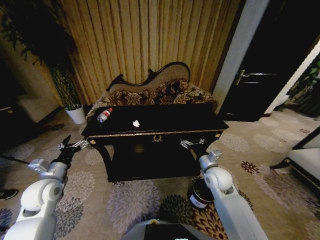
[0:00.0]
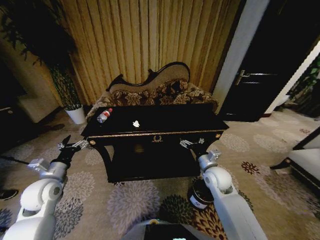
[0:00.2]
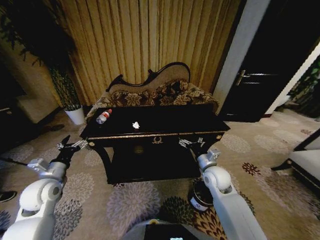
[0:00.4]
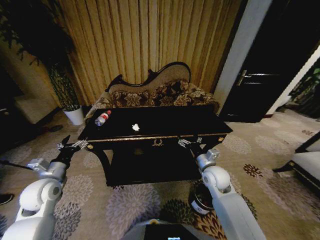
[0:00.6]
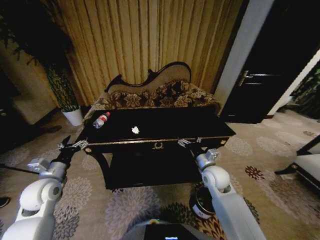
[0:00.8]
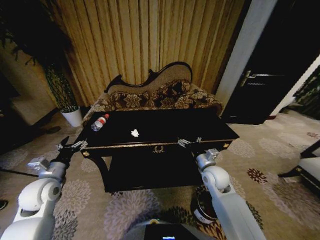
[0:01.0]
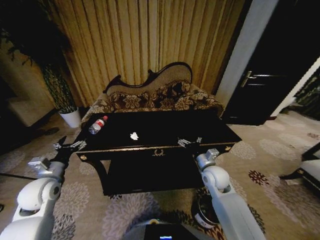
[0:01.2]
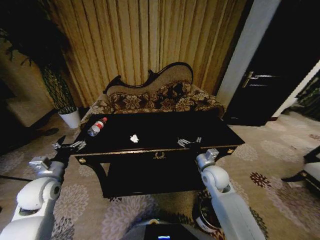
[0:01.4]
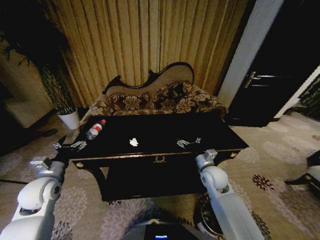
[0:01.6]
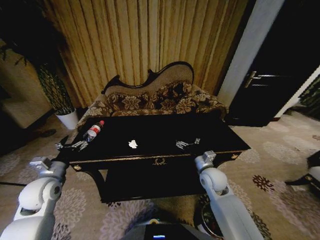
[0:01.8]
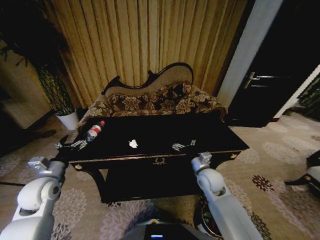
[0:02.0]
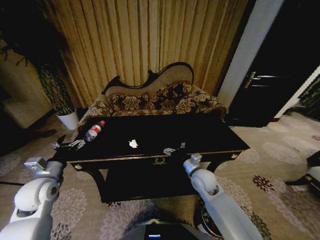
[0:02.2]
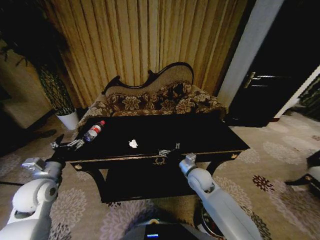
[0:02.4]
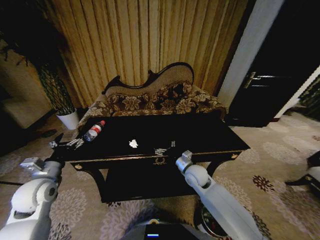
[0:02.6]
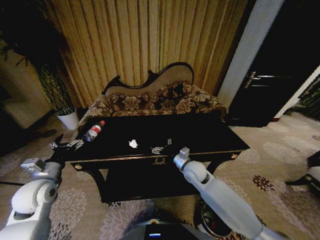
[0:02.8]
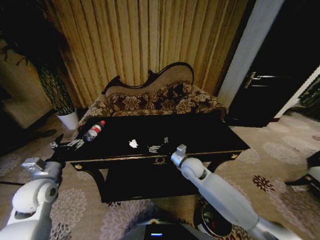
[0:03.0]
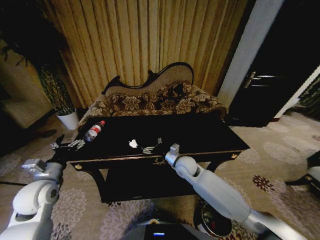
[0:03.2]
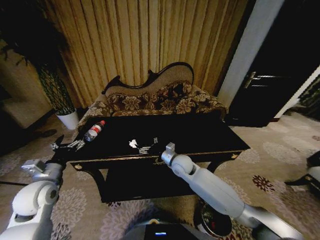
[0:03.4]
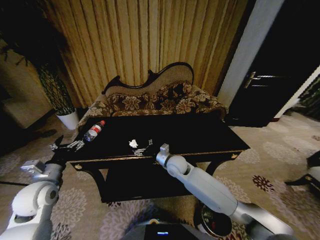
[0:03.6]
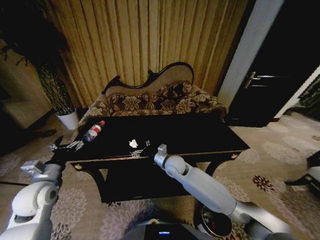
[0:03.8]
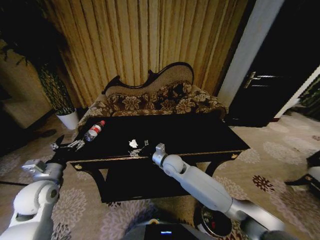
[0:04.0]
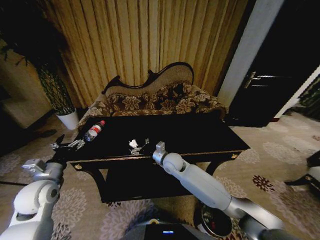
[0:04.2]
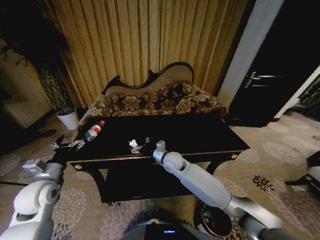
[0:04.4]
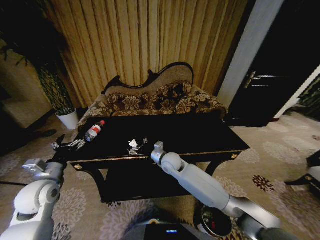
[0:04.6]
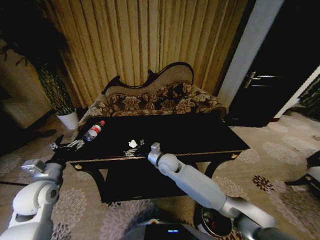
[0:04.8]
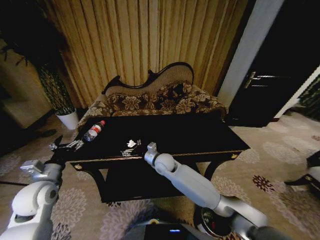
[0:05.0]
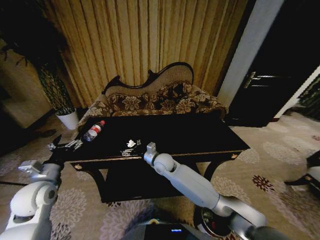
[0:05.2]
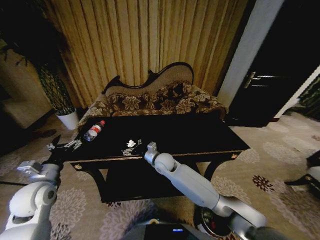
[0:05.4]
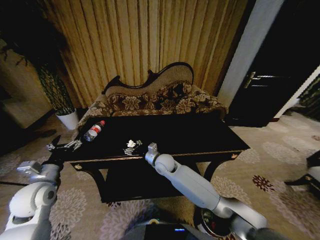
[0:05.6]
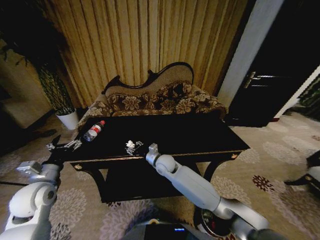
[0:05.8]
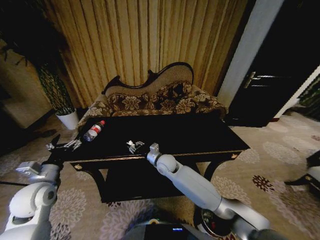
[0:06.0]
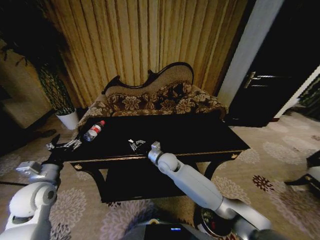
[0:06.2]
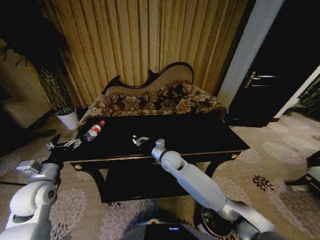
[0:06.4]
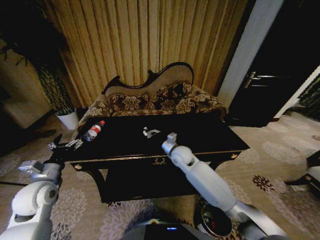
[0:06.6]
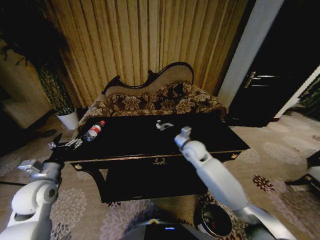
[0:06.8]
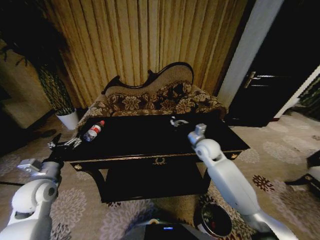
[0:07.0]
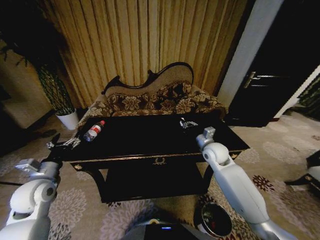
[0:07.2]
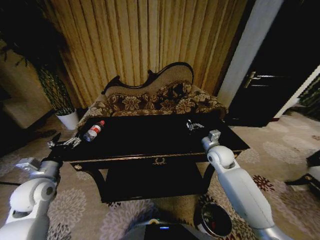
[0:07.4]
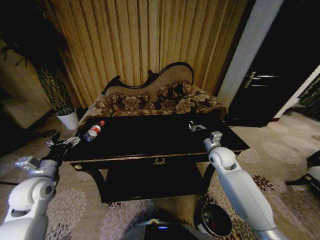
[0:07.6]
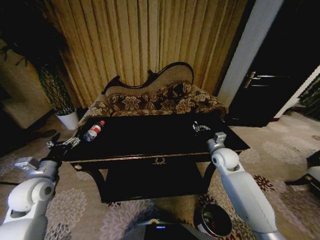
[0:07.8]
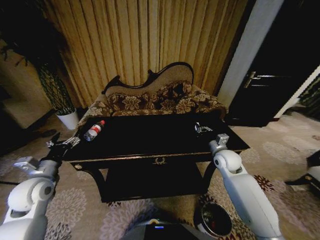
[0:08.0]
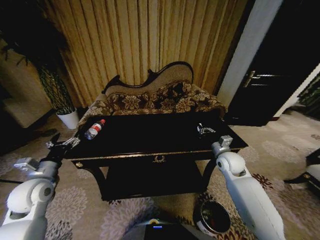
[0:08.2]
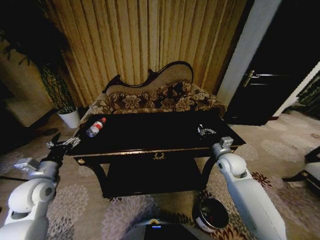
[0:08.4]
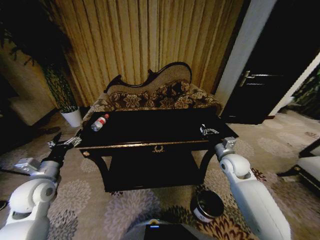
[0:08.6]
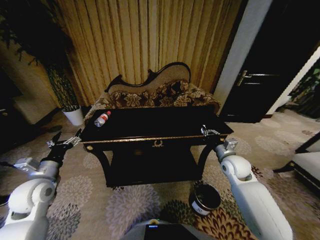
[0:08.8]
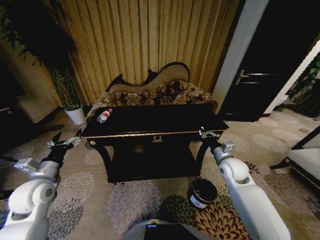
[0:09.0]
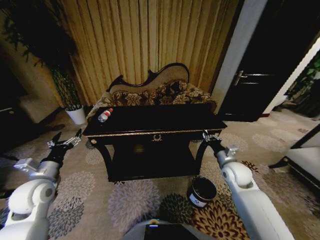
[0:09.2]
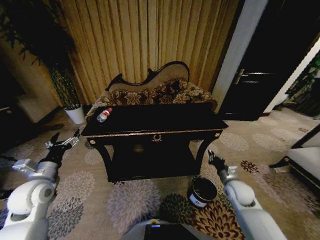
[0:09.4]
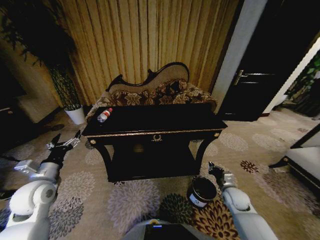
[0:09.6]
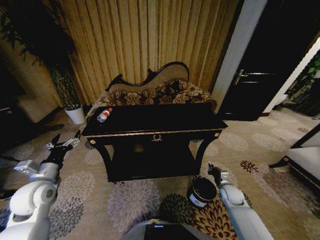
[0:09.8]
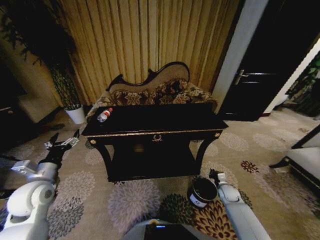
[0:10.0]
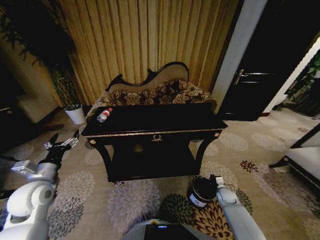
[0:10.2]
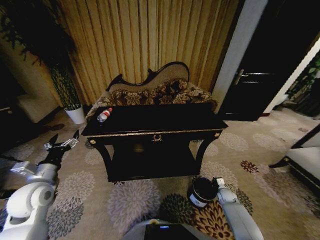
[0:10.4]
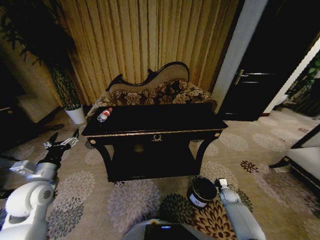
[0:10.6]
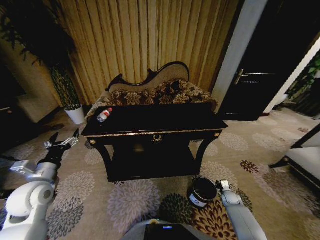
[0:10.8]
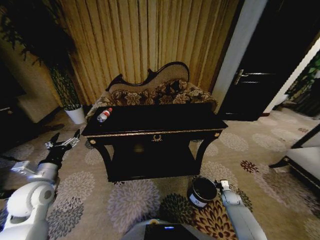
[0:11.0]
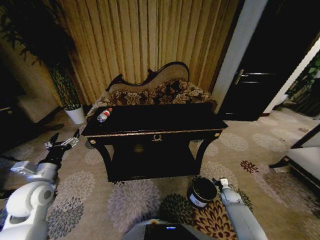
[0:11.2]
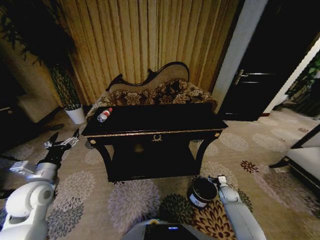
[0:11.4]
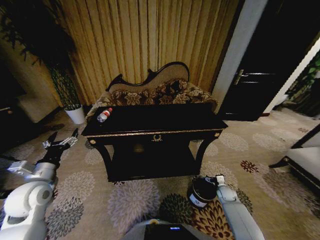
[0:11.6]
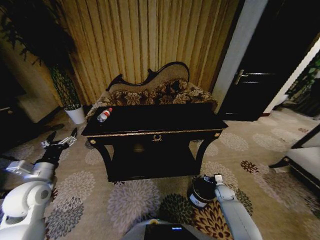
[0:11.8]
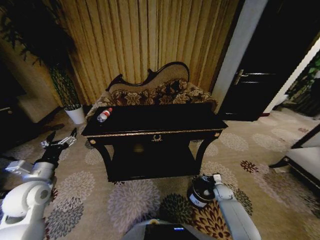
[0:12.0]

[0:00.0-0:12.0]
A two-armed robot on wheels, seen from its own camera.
Task of the whole recording: Move to the front of the table and place the trash on the table into the trash bin.
0:01.6 to 0:03.0: The right gripper heads to the left, covering roughly 10 cm.
0:03.0 to 0:04.4: The right gripper goes some 10 cm to the left.
0:04.4 to 0:06.0: The right gripper closes up.
0:06.0 to 0:07.6: The right gripper goes about 25 cm to the right, and closes.
0:07.6 to 0:09.0: The right gripper is displaced backward by approximately 5 cm.
0:09.0 to 0:10.4: The right gripper is displaced downward by some 30 cm.
0:10.4 to 0:12.0: The right gripper opens up.

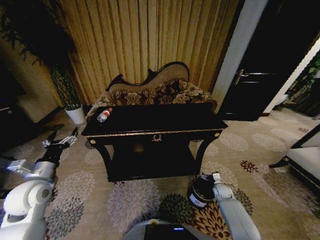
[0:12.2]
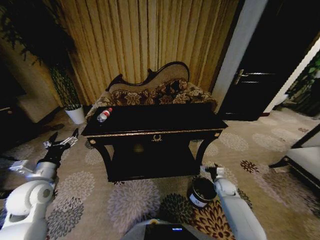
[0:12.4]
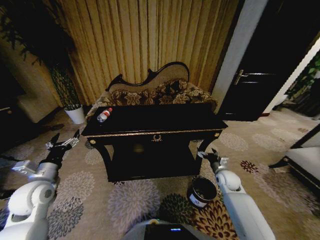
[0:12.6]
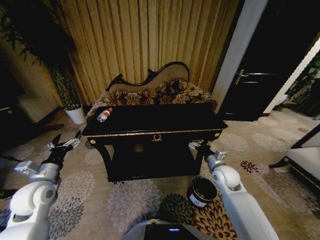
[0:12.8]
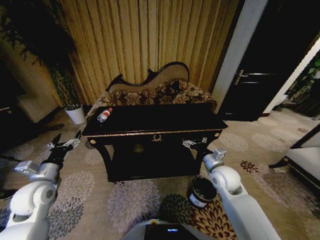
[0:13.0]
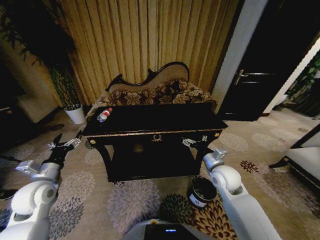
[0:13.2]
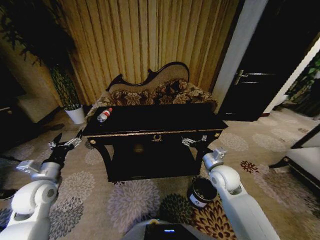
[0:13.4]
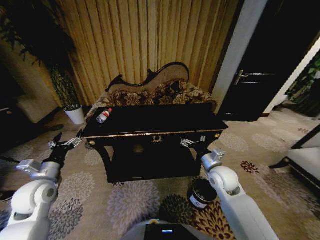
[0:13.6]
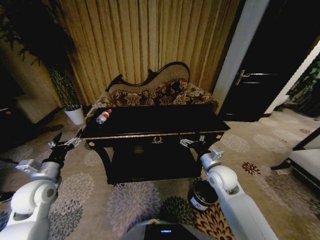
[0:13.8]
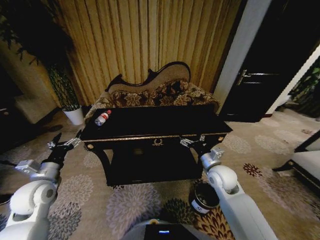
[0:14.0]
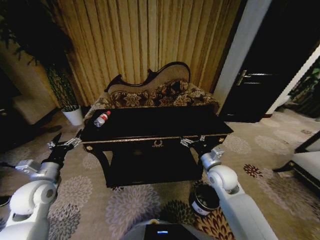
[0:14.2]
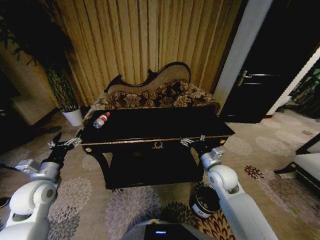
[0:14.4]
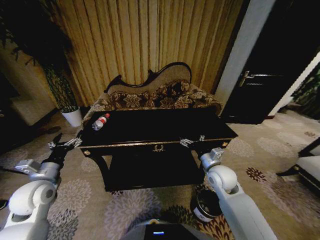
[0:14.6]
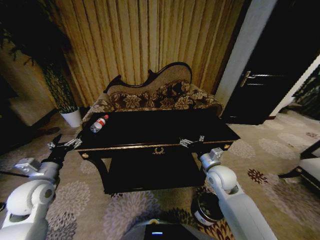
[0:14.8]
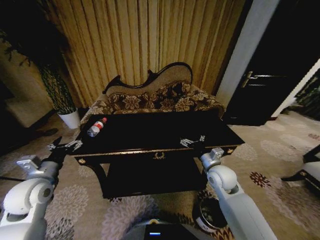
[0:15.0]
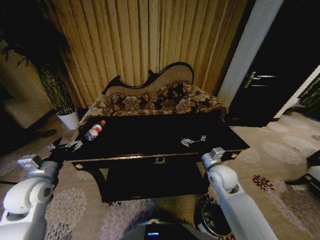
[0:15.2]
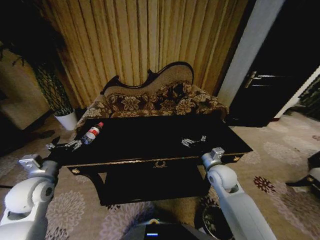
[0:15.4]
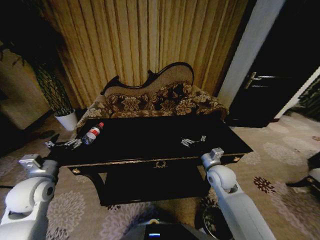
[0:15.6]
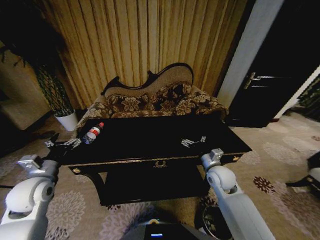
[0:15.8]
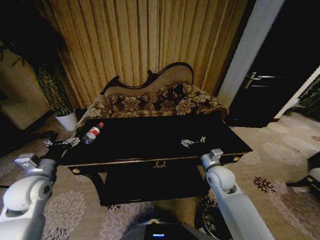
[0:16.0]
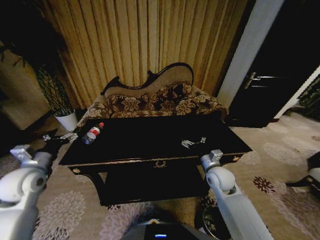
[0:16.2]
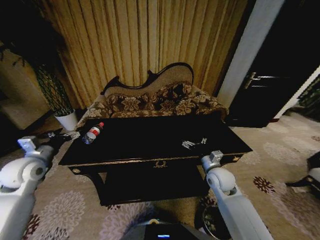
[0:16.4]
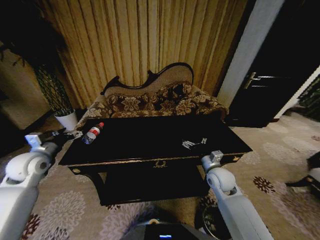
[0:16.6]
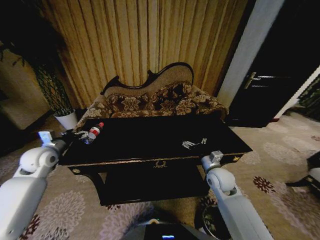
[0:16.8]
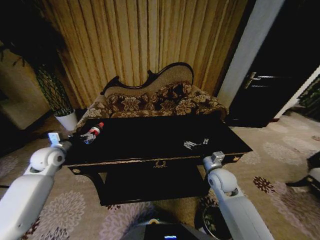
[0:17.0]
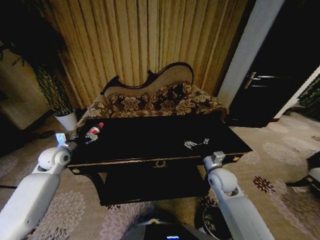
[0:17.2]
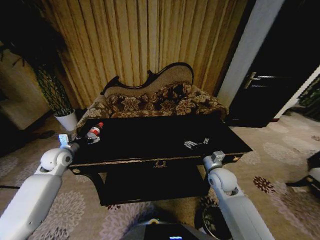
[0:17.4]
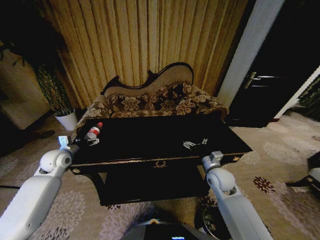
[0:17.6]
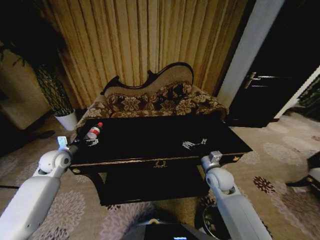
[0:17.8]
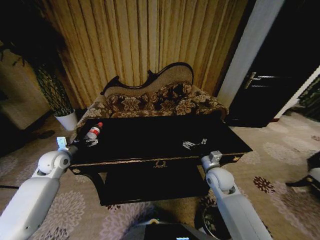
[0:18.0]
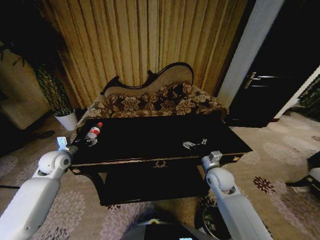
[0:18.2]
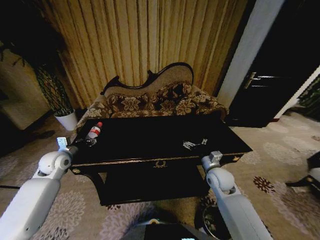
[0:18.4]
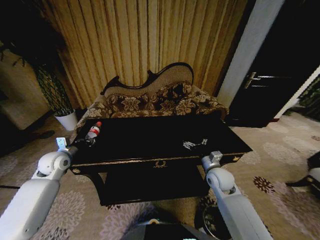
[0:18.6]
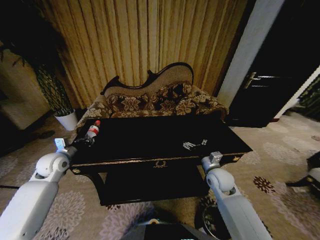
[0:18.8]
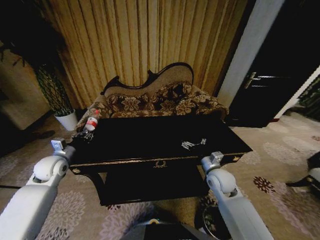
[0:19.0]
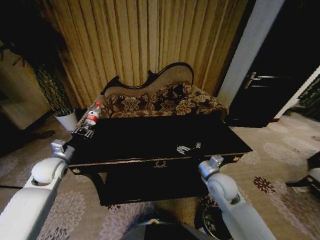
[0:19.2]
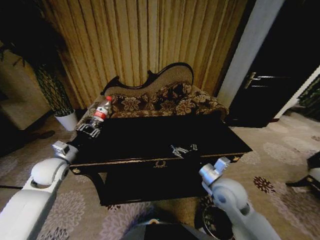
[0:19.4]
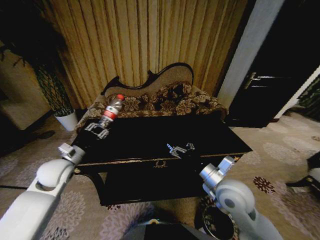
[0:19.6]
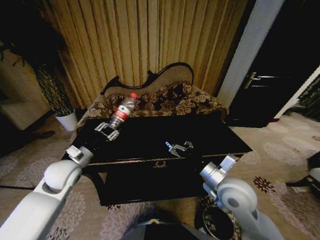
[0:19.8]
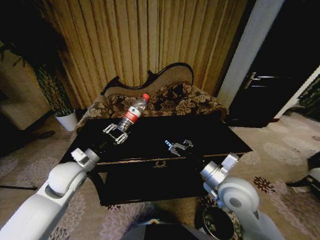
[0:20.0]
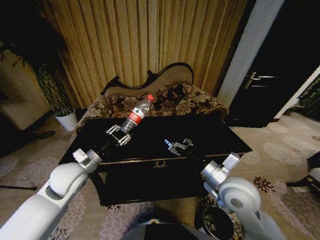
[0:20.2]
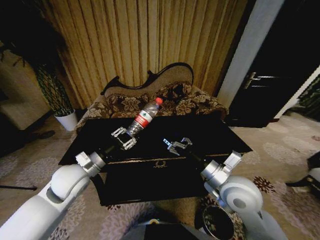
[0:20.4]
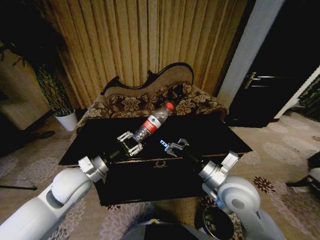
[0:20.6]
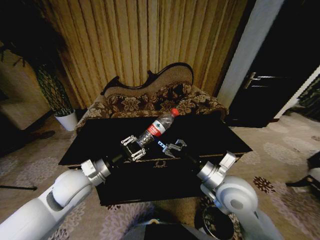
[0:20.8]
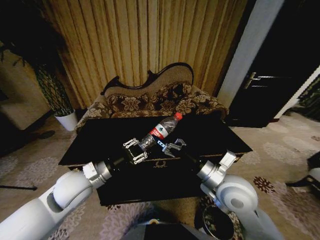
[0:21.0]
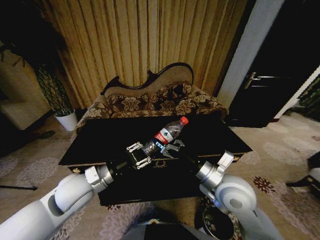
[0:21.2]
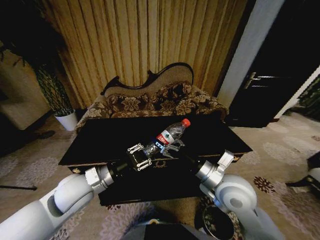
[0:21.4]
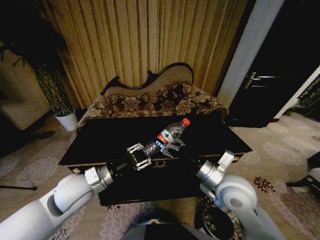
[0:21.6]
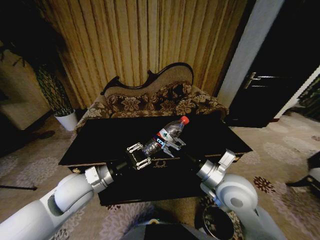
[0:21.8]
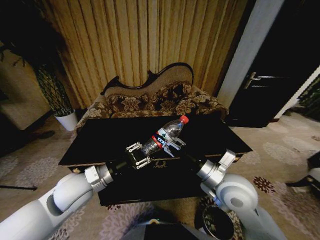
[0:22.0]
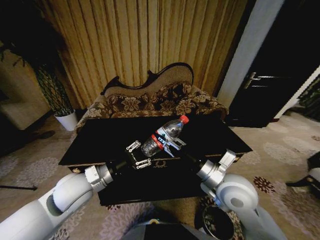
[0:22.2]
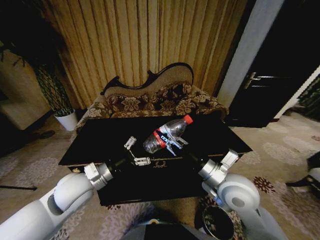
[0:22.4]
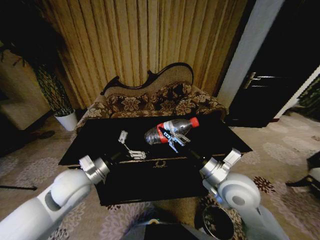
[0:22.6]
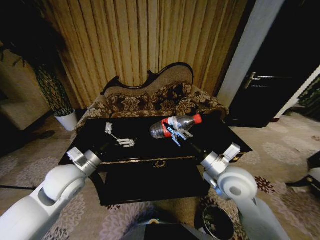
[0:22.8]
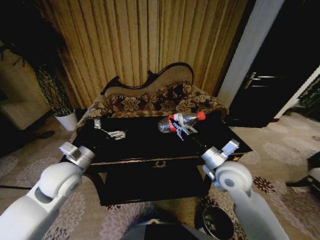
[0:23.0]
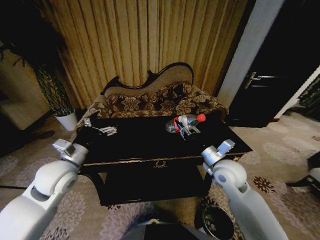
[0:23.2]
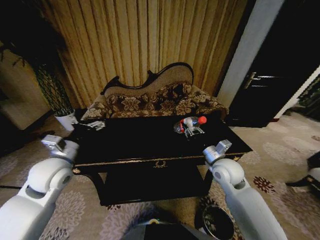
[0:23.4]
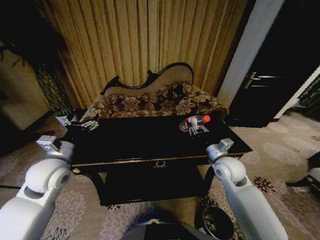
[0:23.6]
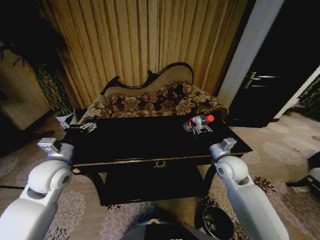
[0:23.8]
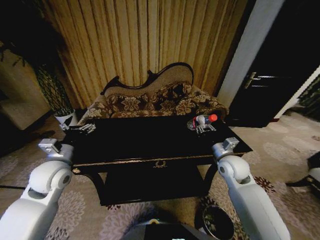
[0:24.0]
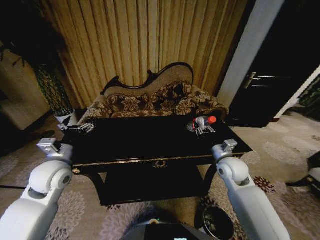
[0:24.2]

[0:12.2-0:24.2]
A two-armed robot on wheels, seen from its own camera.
Task of the whole recording: Move to the front of the table and place the trash on the table into the trash bin.
0:12.2 to 0:13.8: The right gripper goes approximately 30 cm upward and to the left.
0:15.2 to 0:16.6: The left gripper travels forward and to the left by about 10 cm.
0:16.6 to 0:18.2: The left gripper travels downward by about 5 cm.
0:18.2 to 0:19.8: The right gripper shifts about 15 cm upward and backward. Meanwhile the left gripper travels to the right and backward by about 10 cm, and closes.
0:19.8 to 0:21.2: The left gripper travels to the right and backward by some 10 cm.
0:21.2 to 0:22.6: The right gripper closes, while the left gripper opens up.
0:22.6 to 0:24.2: The left gripper moves to the left, roughly 10 cm. The right gripper is displaced forward, to the right and downward by approximately 15 cm.
